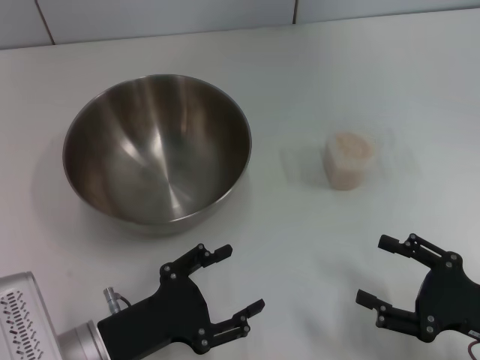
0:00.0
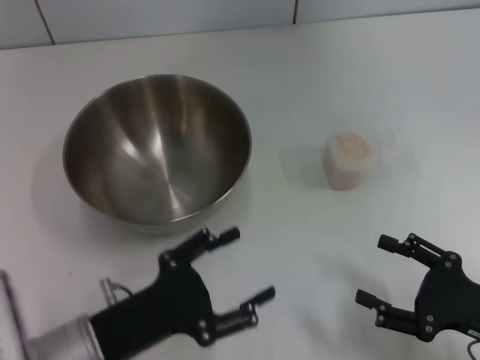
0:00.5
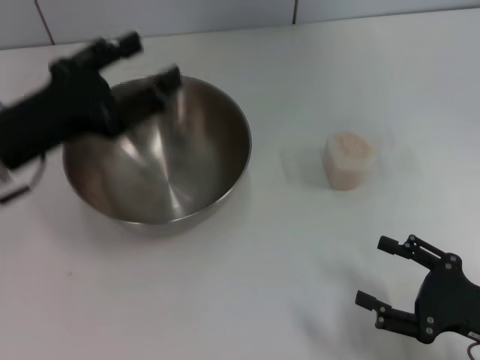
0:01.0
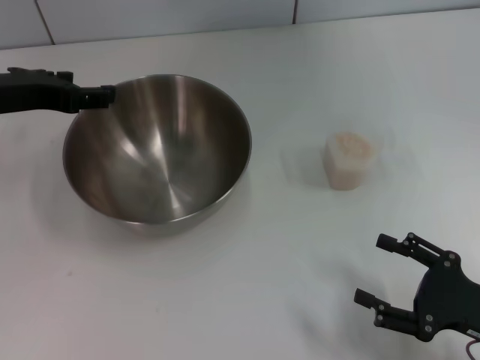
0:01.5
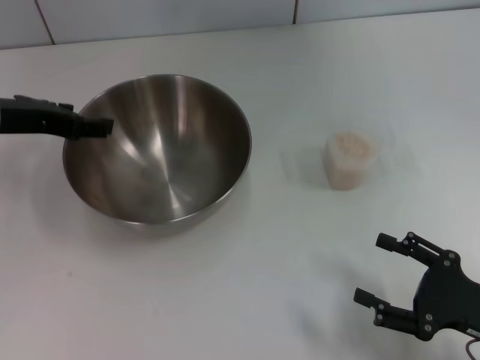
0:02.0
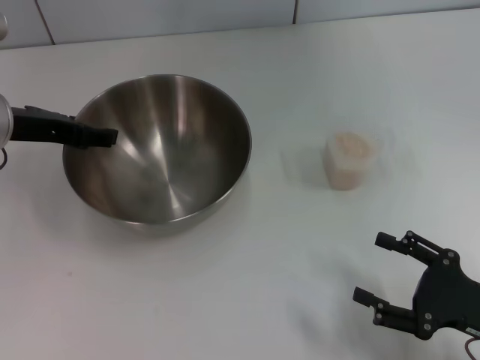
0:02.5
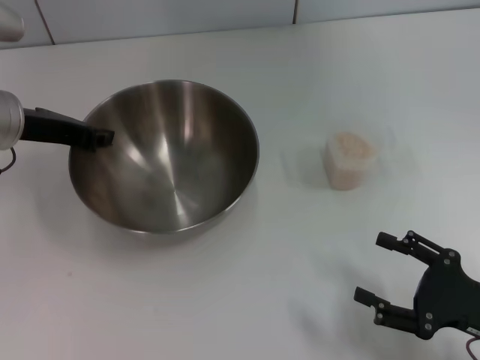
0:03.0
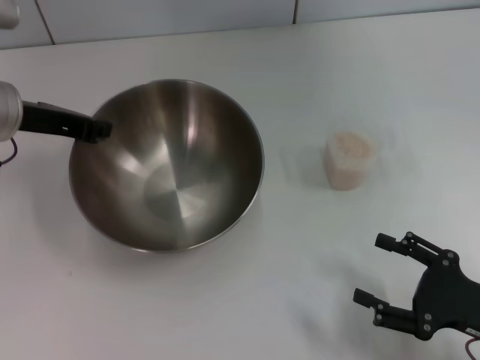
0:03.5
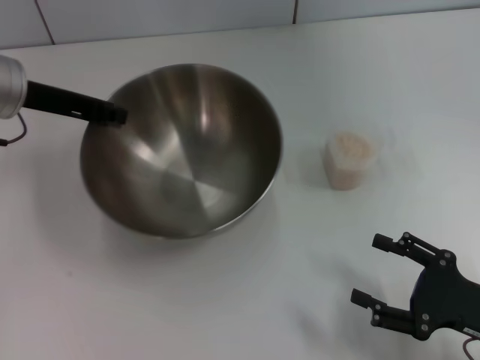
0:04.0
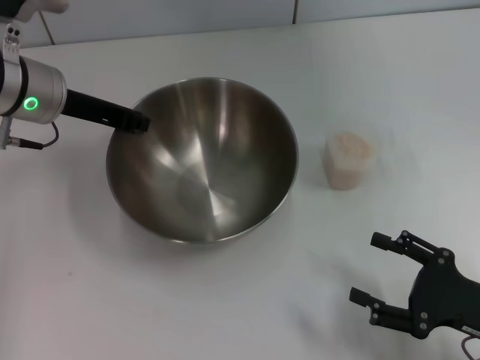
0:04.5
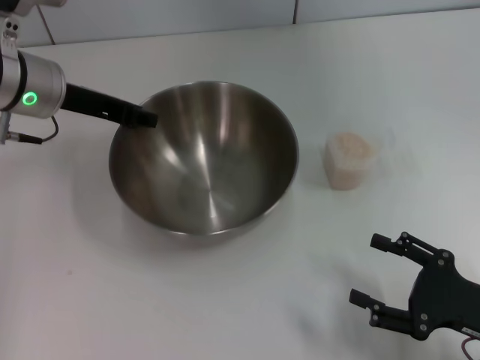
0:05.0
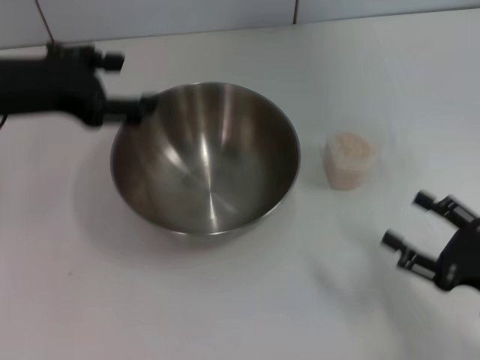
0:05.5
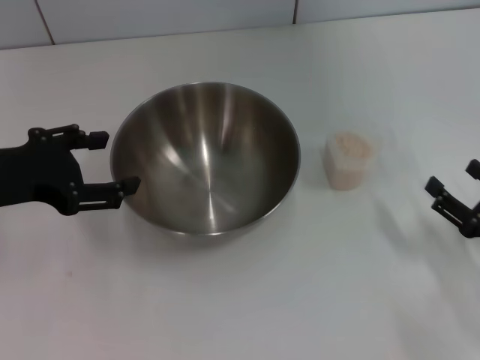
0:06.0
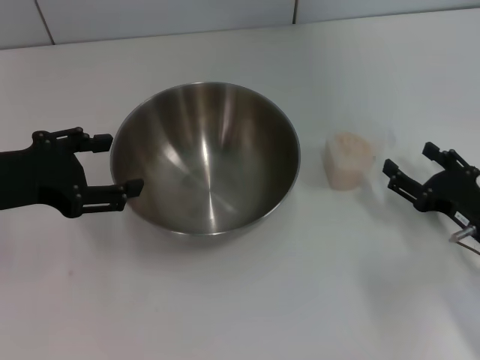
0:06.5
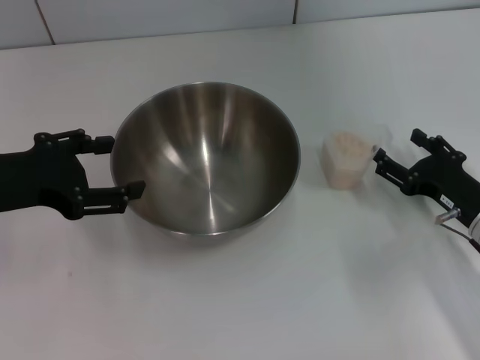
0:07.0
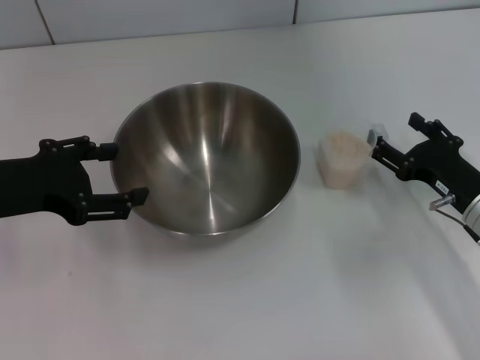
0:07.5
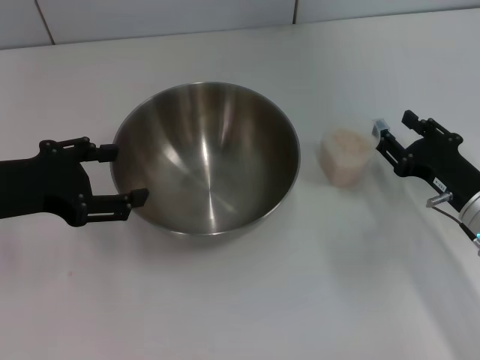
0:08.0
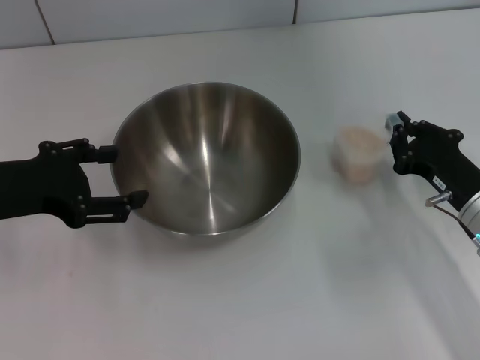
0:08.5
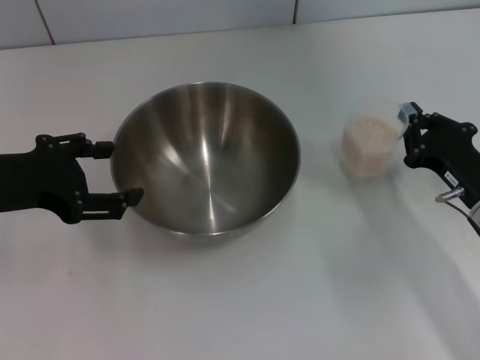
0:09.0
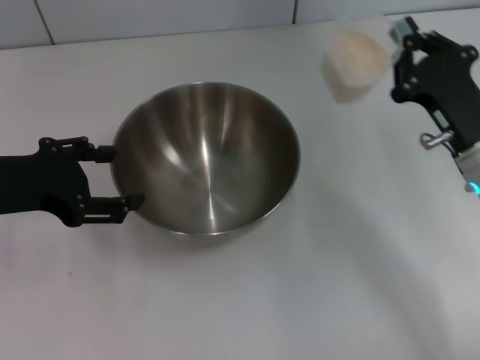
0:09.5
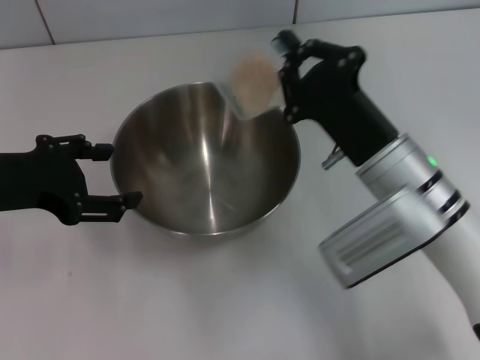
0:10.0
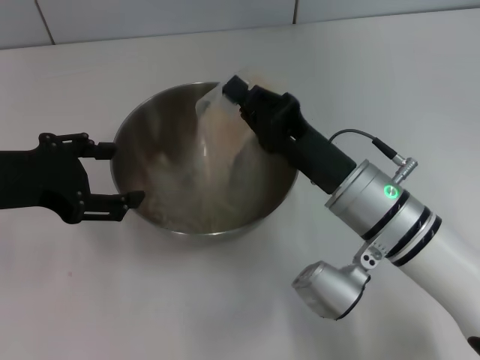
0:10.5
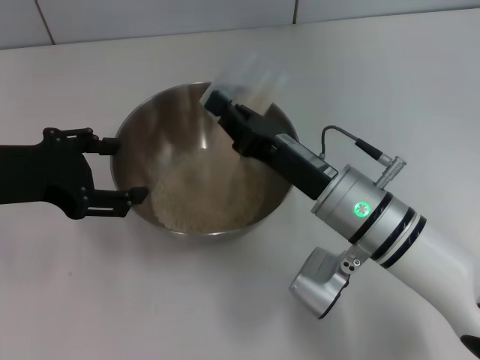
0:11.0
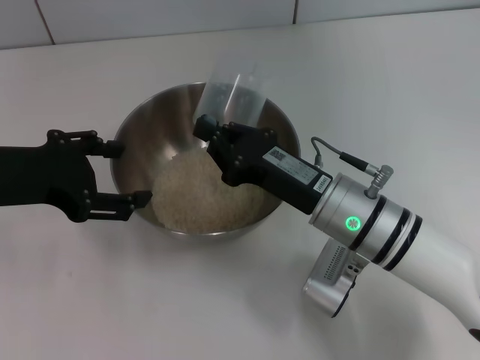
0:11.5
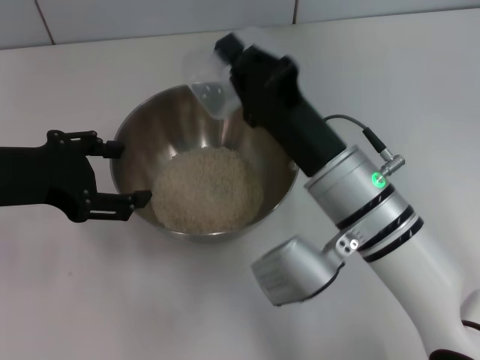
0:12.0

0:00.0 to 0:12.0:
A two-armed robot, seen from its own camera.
Task of the whole recording: Place the bowl in the middle of the table with one hand and pour the rice from the grain cup into it with the other hand.
Step, 0:00.0 to 0:03.5: Pick up the bowl with the left gripper.
Step, 0:04.0 to 0:05.5: Place the bowl in the center of view with the left gripper.
Step, 0:06.0 to 0:09.0: Pick up the cup with rice in it with the right gripper.
0:00.0 to 0:02.0: The left gripper shifts approximately 25 cm forward and upward.
0:02.0 to 0:04.0: The left gripper closes up.
0:04.0 to 0:06.0: The right gripper ends up about 5 cm from where it was. The left gripper heads backward, covering some 10 cm, and opens up.
0:06.0 to 0:08.0: The right gripper shifts some 10 cm forward.
0:08.0 to 0:10.0: The right gripper shifts some 15 cm to the left and upward, and closes up.
0:10.0 to 0:12.0: The right gripper goes about 5 cm to the left.

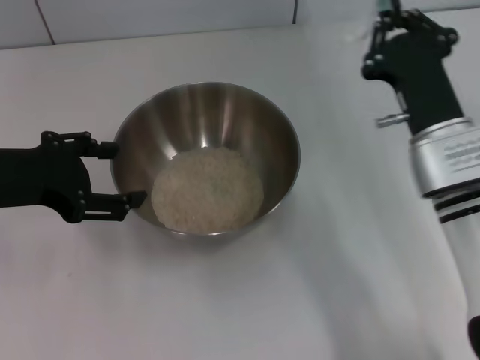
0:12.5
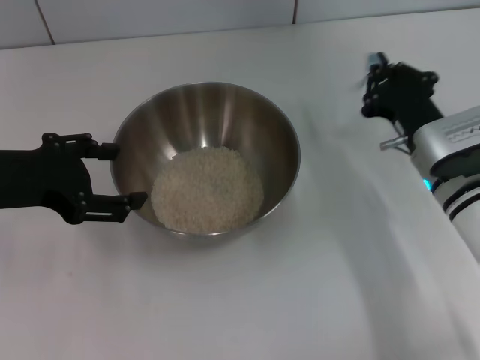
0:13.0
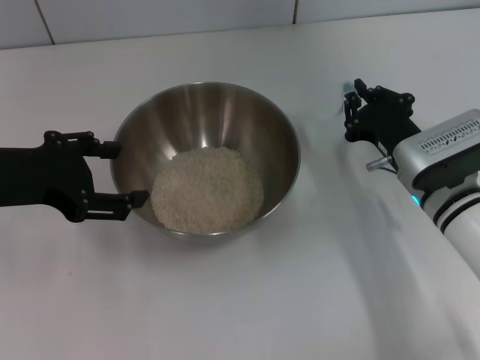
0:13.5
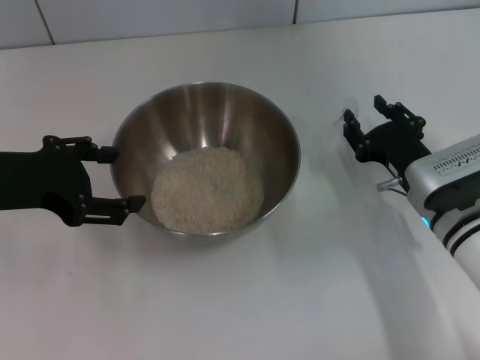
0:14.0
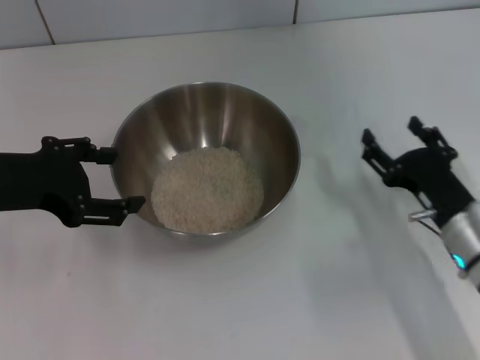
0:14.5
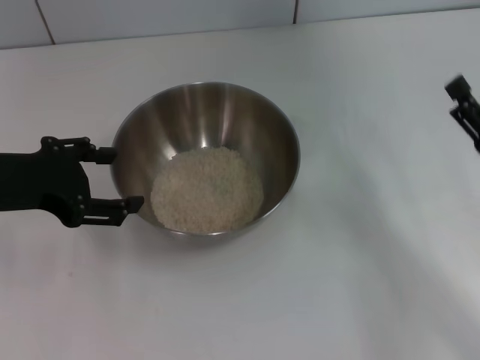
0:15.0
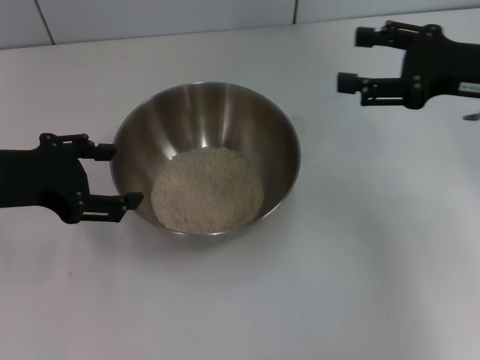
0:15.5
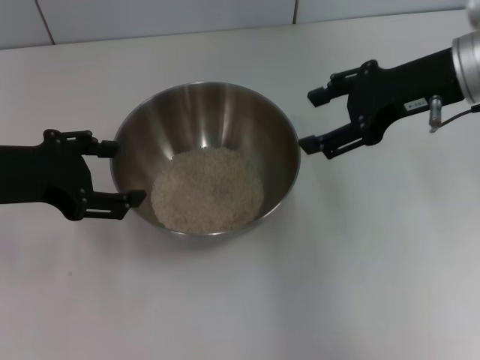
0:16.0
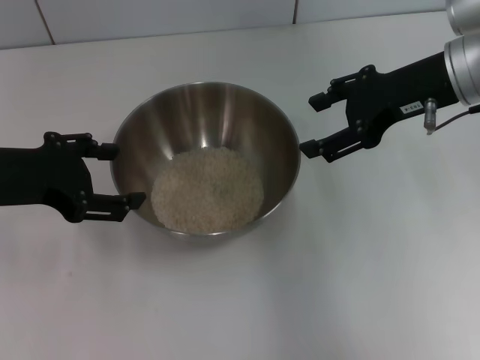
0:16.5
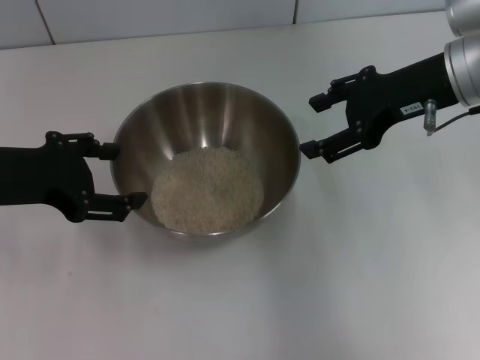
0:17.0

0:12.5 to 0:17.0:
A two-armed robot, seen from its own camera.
Task of the whole recording: Place the bowl in the middle of the table with one hand and pour the rice from the grain cup into it with the other hand.
Step, 0:12.5 to 0:15.0: Place the cup on the table with the right gripper.
0:12.5 to 0:14.5: The right gripper is displaced downward and to the right by approximately 10 cm, and opens up.
0:14.5 to 0:17.0: The right gripper travels upward and forward by about 25 cm.

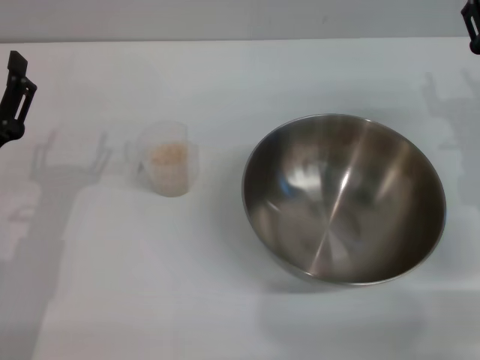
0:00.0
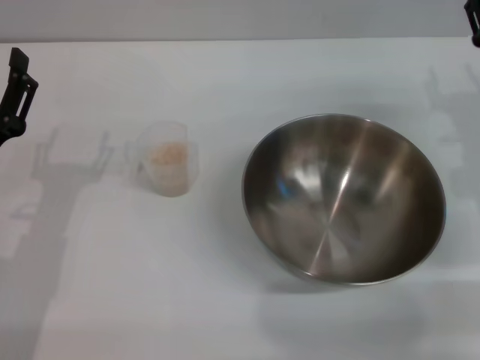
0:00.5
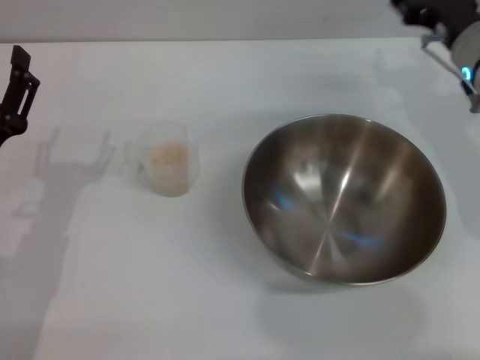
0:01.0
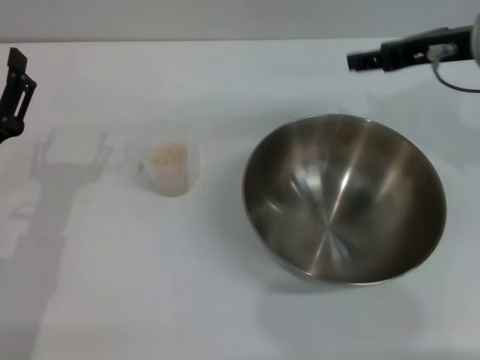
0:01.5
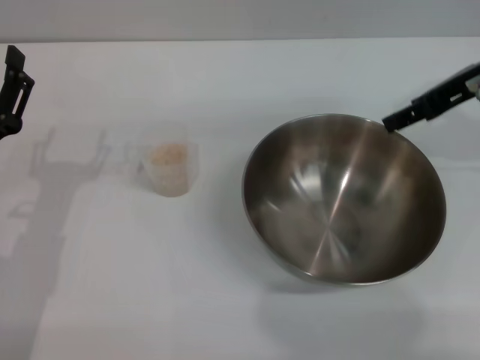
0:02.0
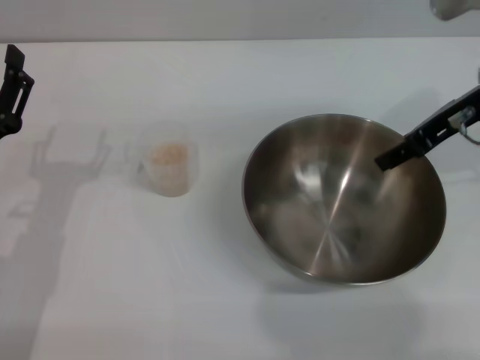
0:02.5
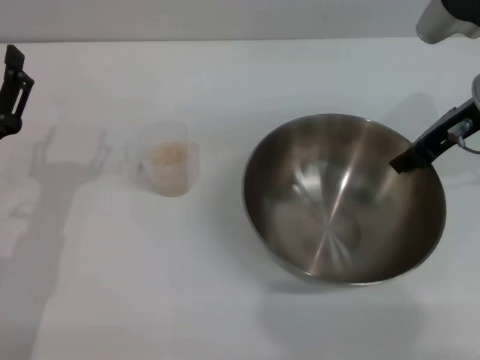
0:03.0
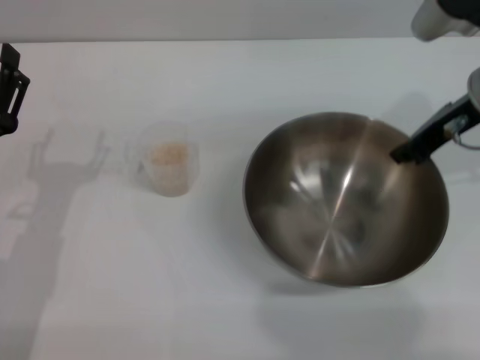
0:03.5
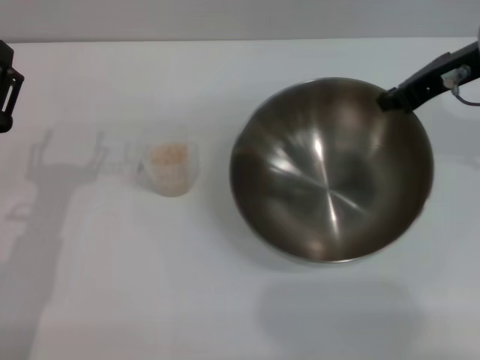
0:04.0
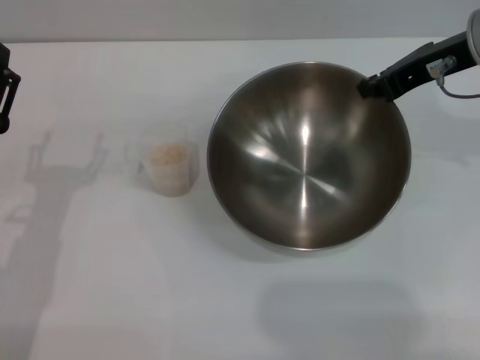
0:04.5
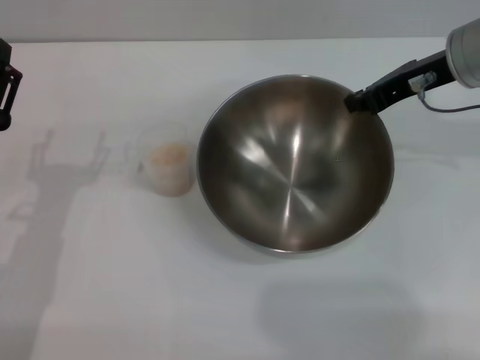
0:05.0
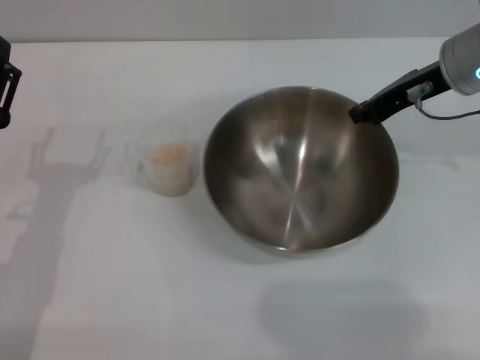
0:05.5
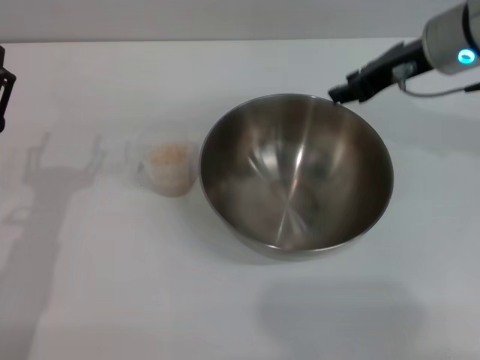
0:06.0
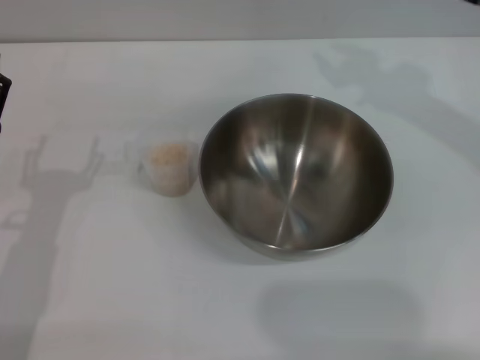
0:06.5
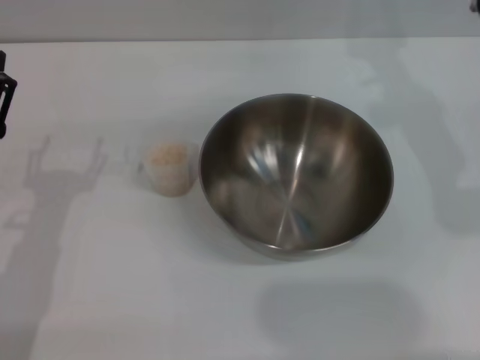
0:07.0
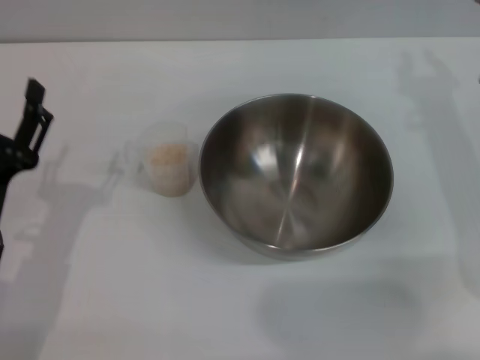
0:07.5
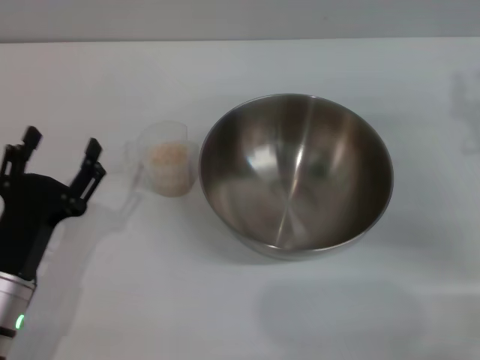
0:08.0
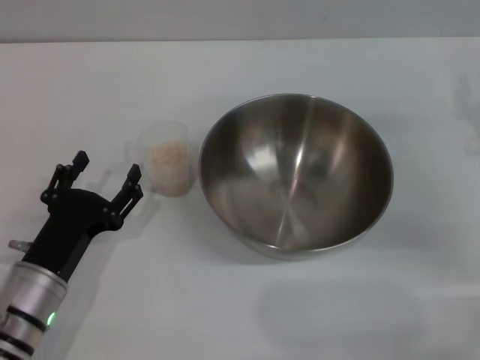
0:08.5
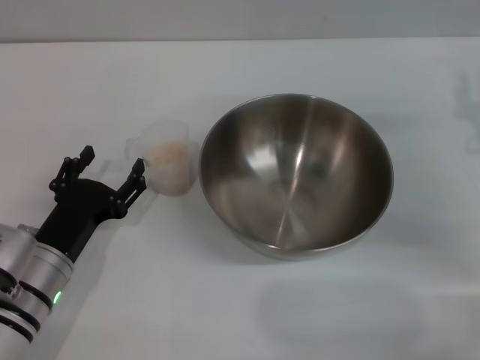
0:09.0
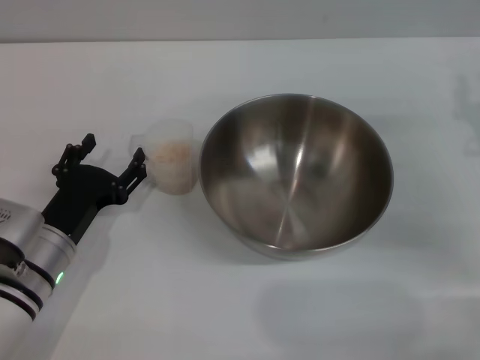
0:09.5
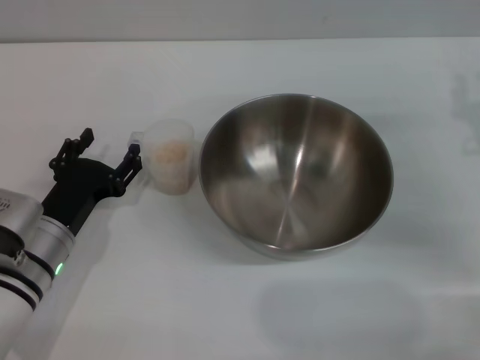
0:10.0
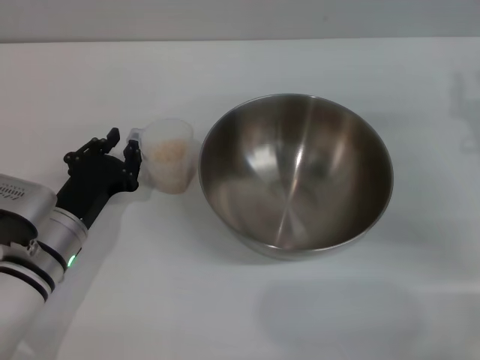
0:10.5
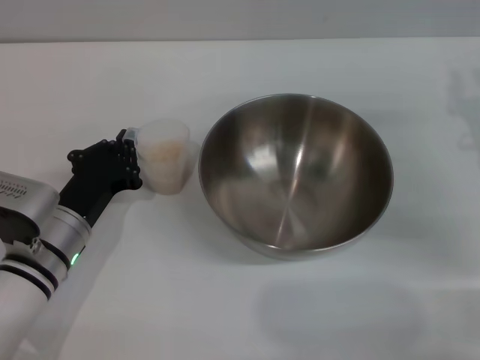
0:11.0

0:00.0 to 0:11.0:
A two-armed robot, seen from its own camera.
Task of the whole recording: Place the bowl in the middle of the table with one hand and pour the rice from the grain cup into it with the other hand.
Step, 0:00.0 to 0:04.0: Pick up the bowl with the right gripper.
Step, 0:04.5 to 0:06.0: Place the bowl in the center of view with the right gripper.
0:00.0 to 0:02.0: The right gripper shifts approximately 15 cm upward.
0:02.0 to 0:03.5: The right gripper closes.
0:05.5 to 0:07.5: The right gripper travels backward by about 5 cm, and opens its fingers.
0:07.5 to 0:09.0: The right gripper heads to the right, covering approximately 5 cm, while the left gripper goes approximately 5 cm downward.
0:09.0 to 0:11.0: The left gripper closes its fingers.
